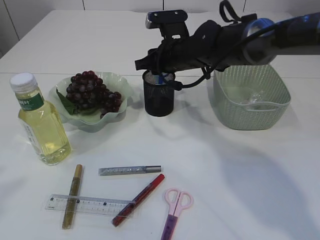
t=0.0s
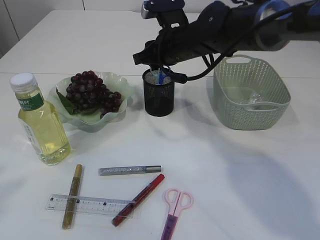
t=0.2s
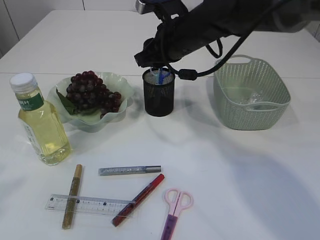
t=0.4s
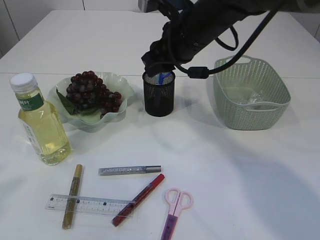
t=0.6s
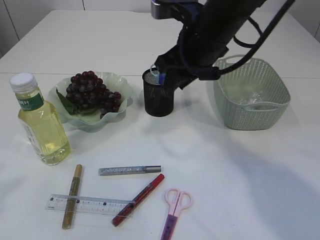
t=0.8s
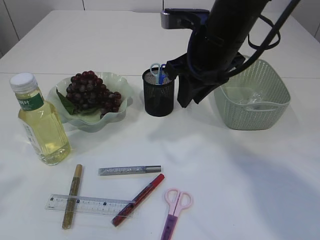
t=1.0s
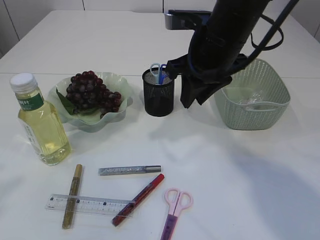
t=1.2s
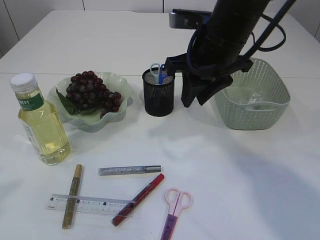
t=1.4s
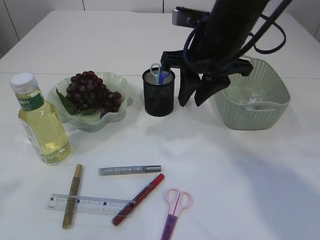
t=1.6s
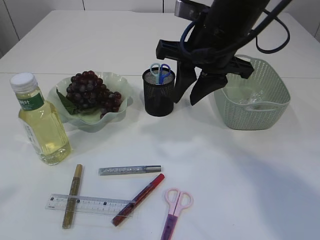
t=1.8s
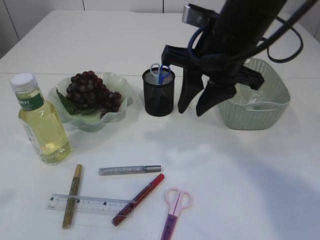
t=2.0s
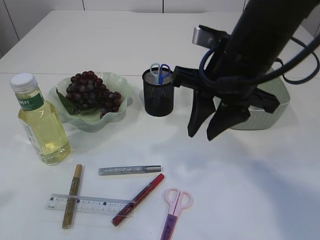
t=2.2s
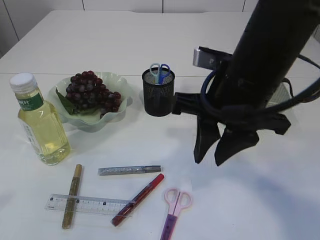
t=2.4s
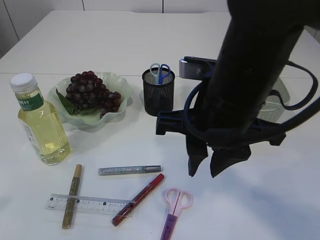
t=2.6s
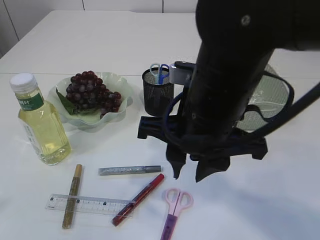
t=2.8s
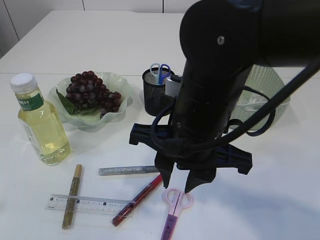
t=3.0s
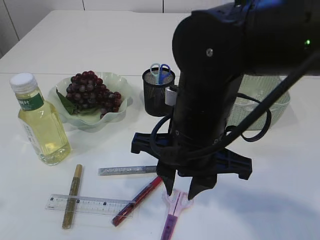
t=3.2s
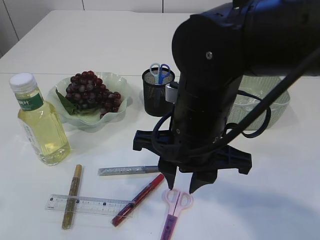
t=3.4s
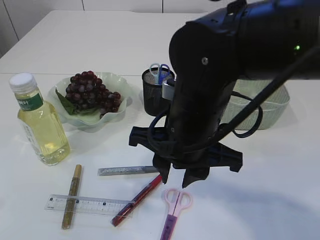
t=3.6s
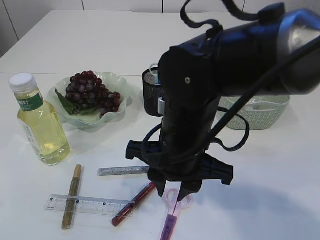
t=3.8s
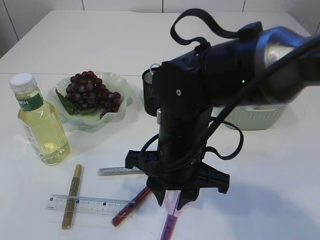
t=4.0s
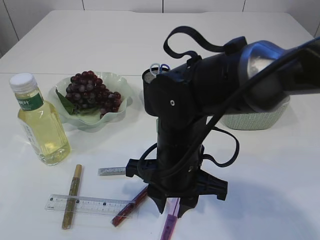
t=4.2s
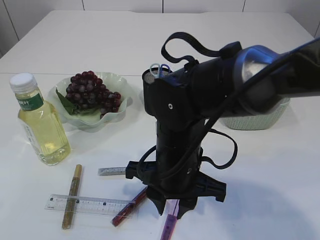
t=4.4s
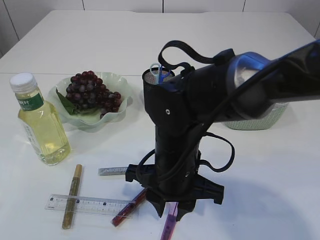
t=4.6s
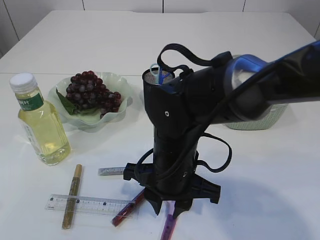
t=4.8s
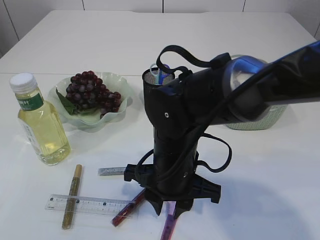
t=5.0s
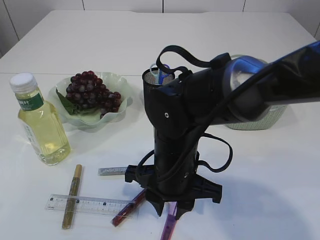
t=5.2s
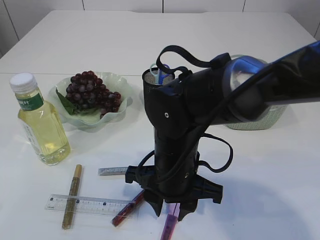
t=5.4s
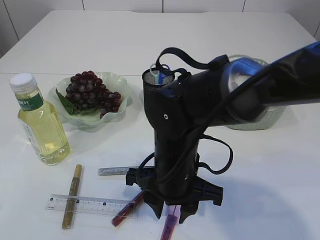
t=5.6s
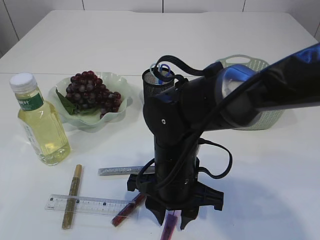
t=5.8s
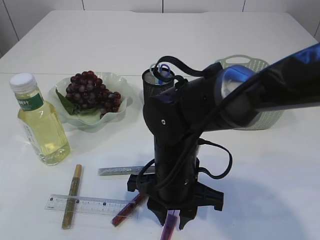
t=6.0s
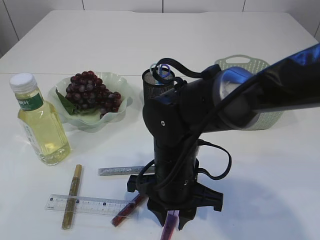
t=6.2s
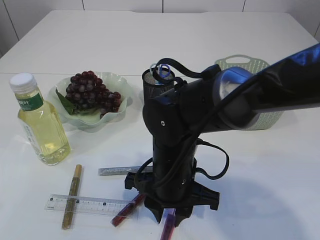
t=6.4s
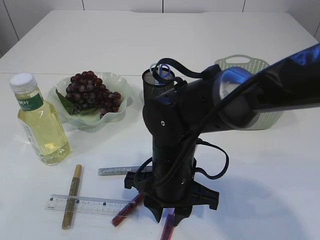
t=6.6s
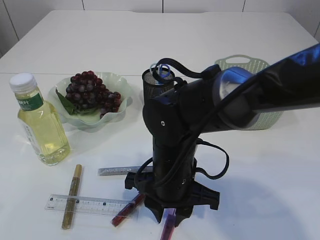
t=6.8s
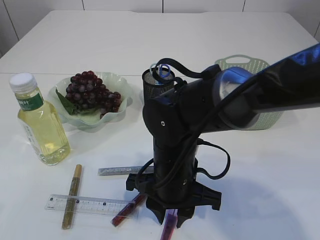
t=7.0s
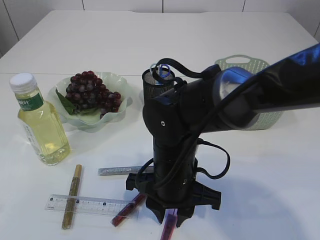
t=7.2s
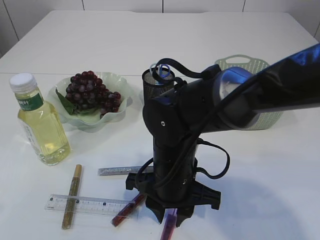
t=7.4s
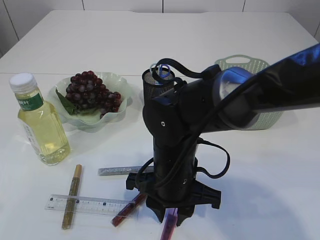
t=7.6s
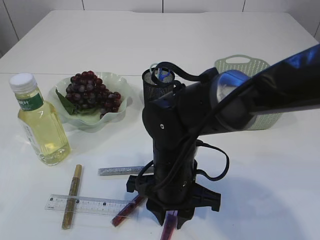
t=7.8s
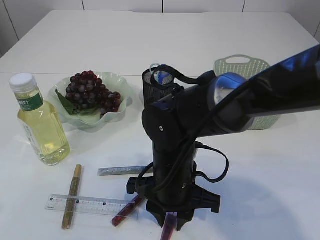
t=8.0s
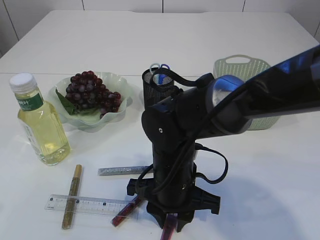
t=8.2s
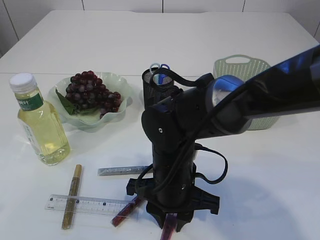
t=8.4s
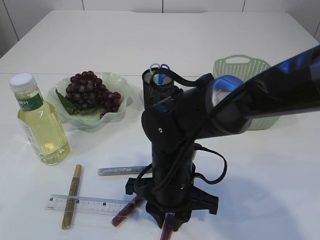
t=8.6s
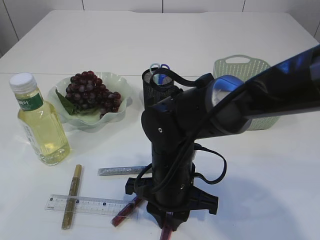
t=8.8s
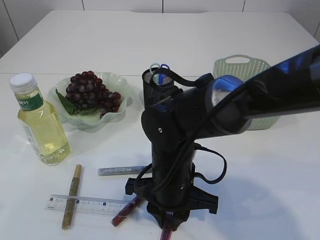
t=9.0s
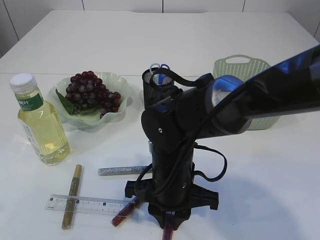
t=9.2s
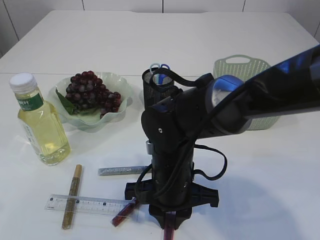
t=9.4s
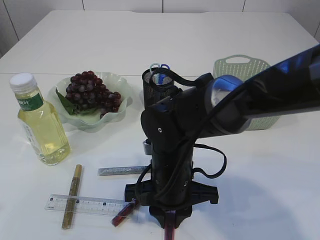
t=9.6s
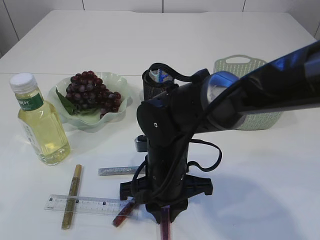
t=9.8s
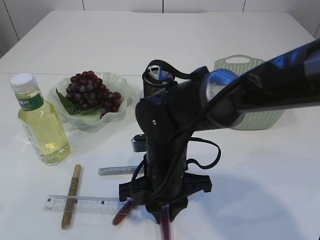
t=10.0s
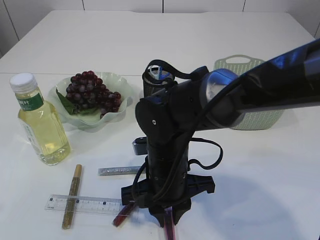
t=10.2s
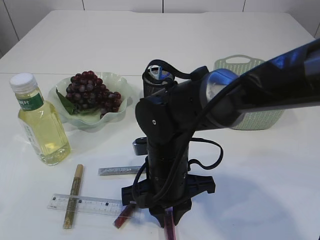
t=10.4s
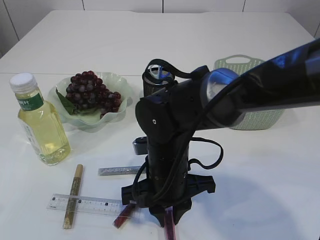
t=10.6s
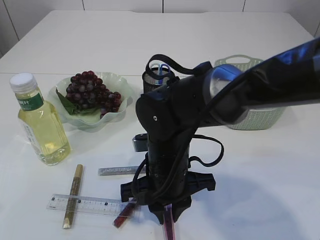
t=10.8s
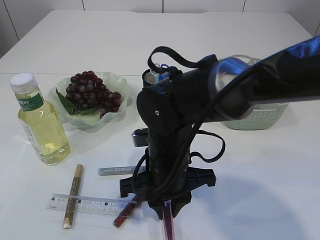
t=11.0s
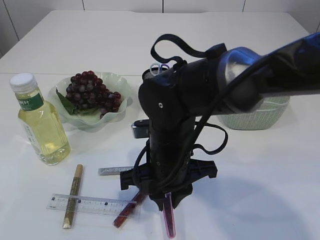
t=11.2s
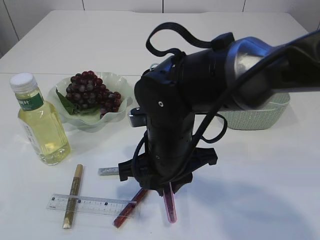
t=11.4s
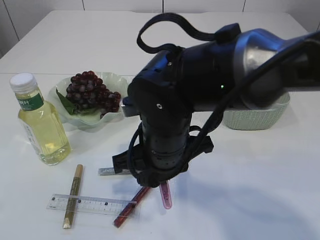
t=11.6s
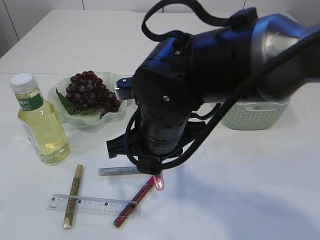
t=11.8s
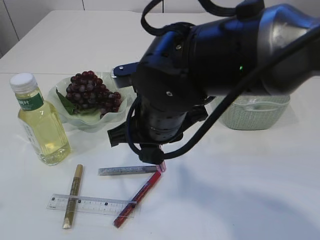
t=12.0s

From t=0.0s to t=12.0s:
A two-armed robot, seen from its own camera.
Step, from t=0.6s to t=11.6s: pick up the pink scissors.
From t=0.0s to t=1.6s: The right gripper shifts about 15 cm backward and upward.
From t=1.6s to t=3.0s: The right gripper travels backward and to the left by approximately 15 cm.
From t=3.0s to t=4.4s: The right gripper moves downward, roughly 10 cm.
From t=4.4s to t=6.0s: The grippers move only a little.
From t=6.0s to t=7.6s: Both grippers stay put.
From t=7.6s to t=9.0s: Neither gripper changes place.
From t=10.4s to t=12.0s: The right gripper moves upward, approximately 10 cm.

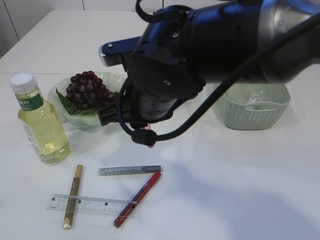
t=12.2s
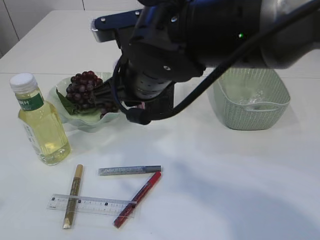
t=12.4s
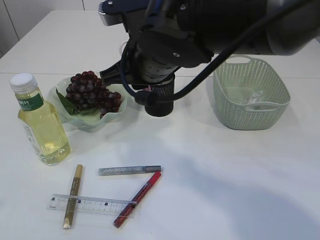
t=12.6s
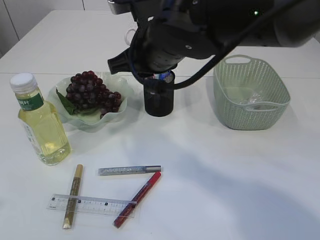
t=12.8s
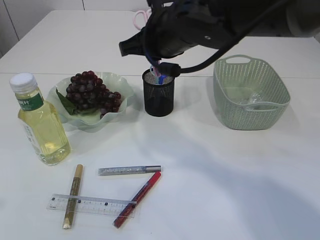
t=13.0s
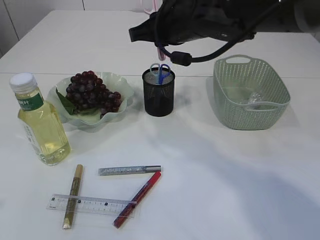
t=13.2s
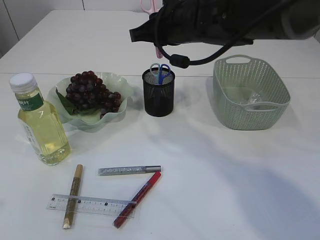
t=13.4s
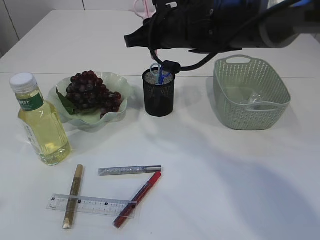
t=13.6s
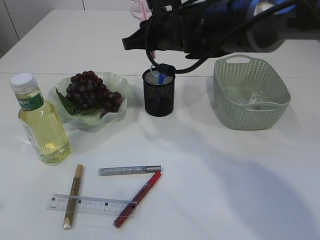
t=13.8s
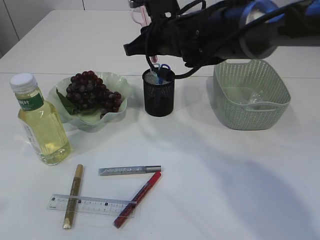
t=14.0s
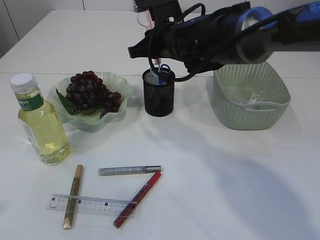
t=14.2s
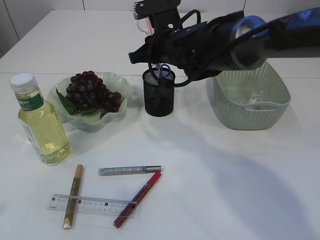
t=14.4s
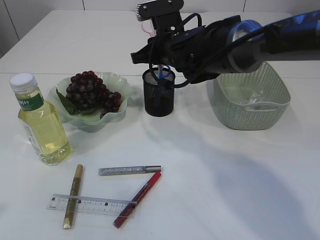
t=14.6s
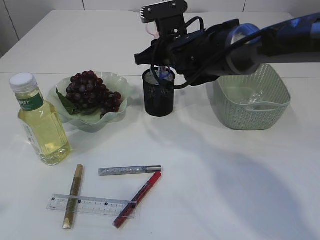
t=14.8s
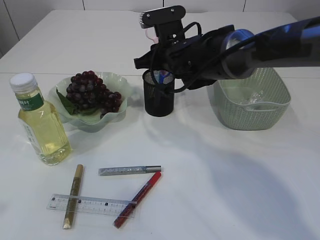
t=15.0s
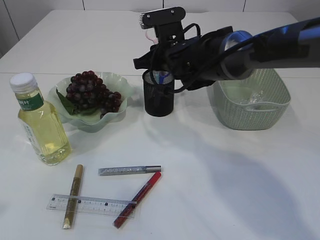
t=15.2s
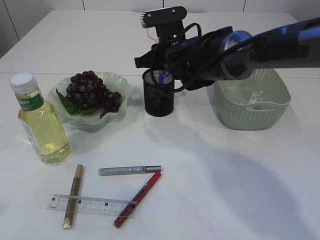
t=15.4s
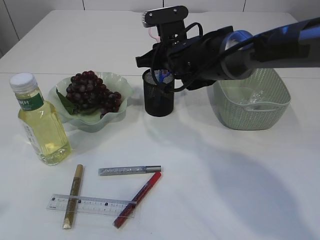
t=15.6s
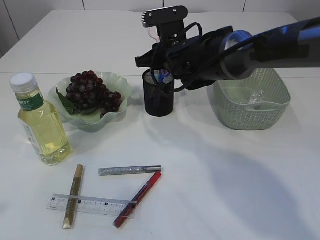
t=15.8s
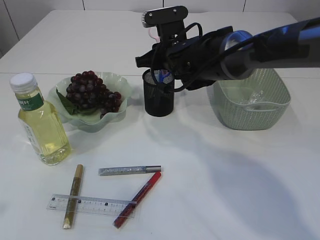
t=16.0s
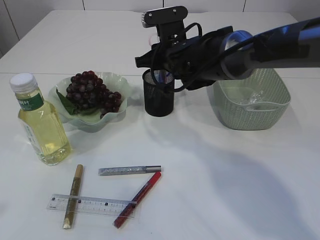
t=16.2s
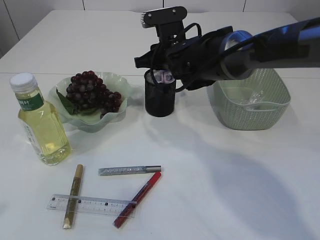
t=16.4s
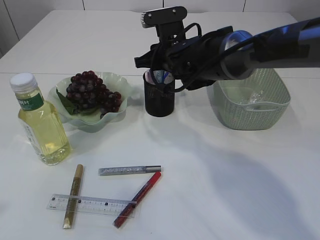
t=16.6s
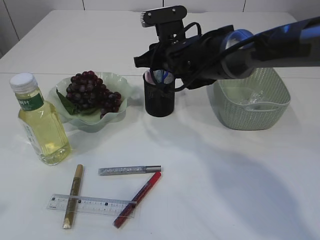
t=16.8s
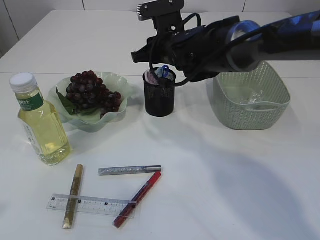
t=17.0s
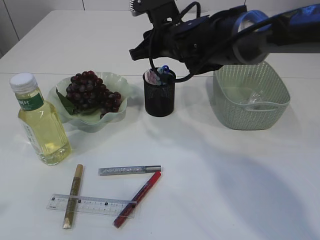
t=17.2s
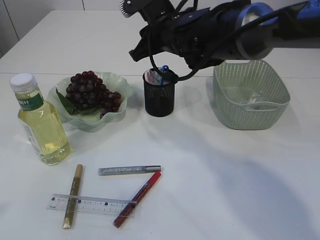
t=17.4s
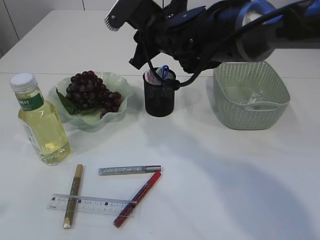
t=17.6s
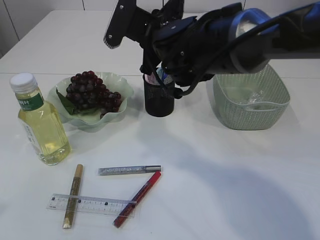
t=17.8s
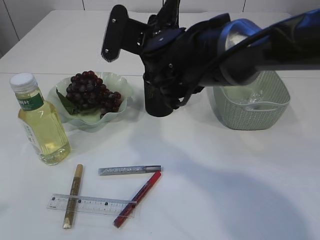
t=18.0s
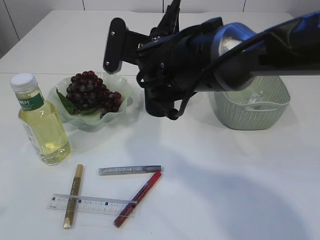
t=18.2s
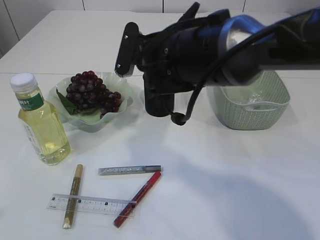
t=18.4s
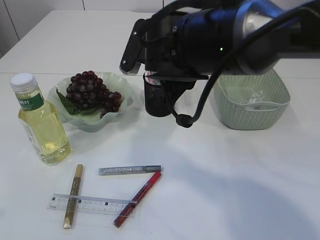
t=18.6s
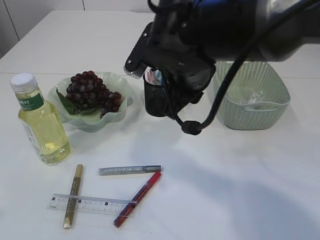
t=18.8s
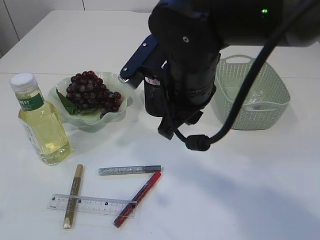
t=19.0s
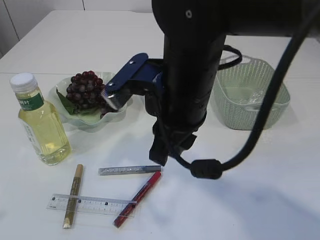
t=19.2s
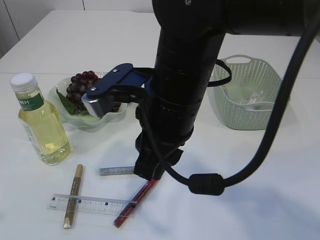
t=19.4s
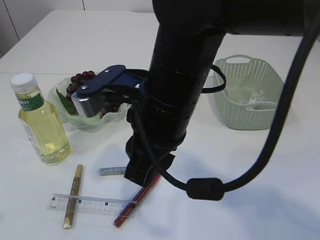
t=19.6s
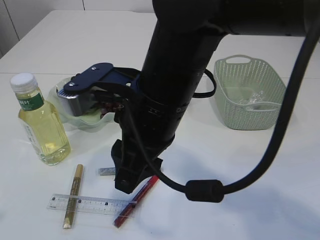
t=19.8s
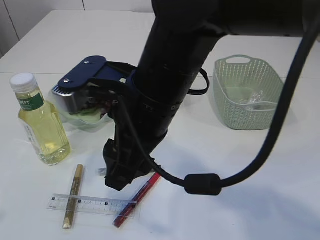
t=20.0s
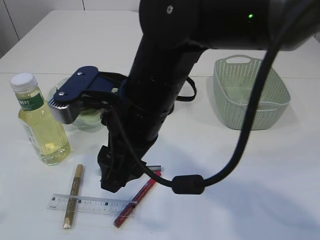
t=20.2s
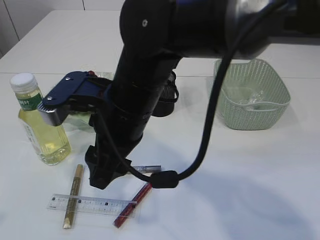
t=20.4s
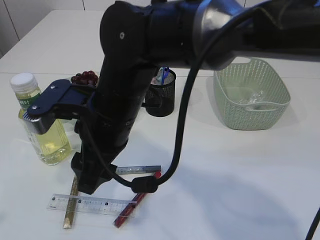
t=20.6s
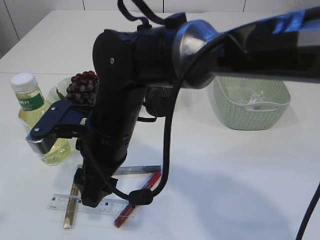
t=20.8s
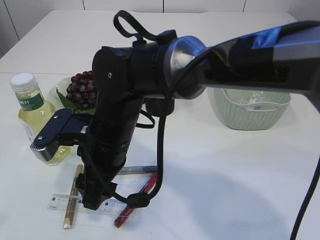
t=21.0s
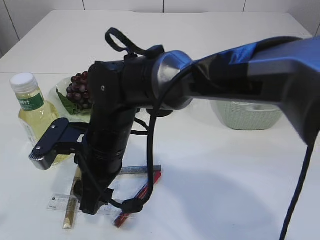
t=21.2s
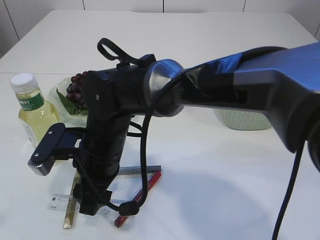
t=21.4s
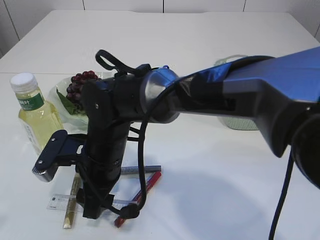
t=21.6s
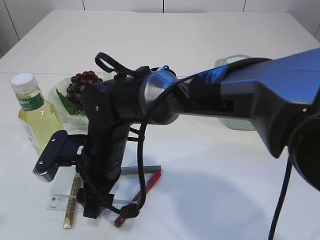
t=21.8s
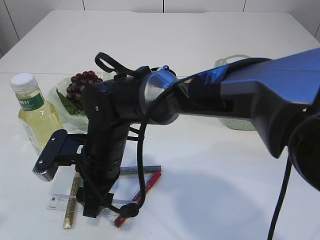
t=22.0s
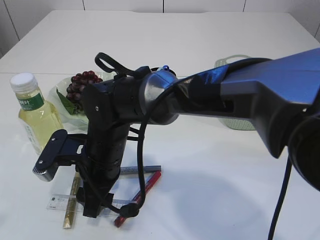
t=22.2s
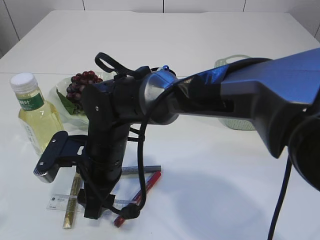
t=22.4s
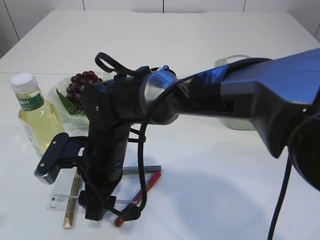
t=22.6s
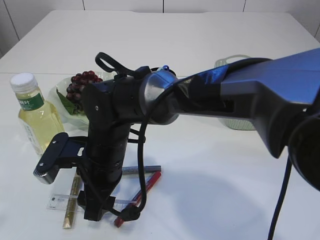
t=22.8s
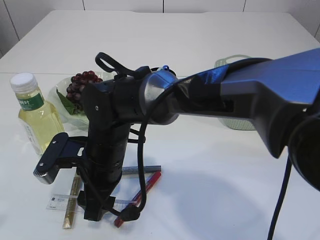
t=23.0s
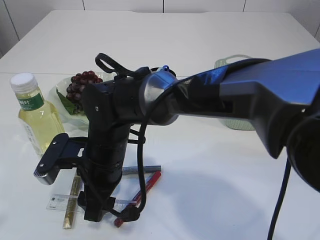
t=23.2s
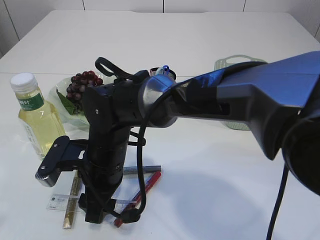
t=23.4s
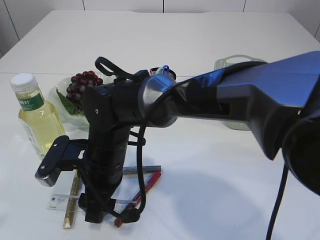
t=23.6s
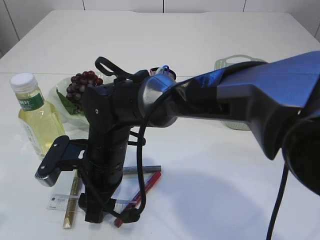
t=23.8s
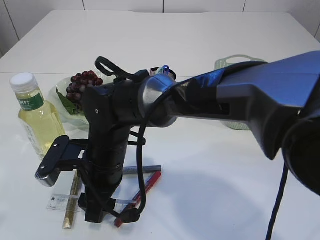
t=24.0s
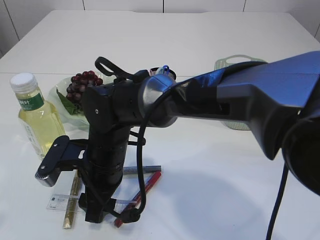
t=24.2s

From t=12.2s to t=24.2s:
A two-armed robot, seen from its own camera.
Step, from t=12.2s to t=18.8s: Place the pink scissors into the pen holder.
From t=12.2s to t=13.8s: The right gripper moves forward, approximately 15 cm.
From t=13.8s to t=15.2s: The right gripper travels downward by roughly 5 cm.
From t=15.2s to t=16.6s: Both grippers stay put.
From t=16.6s to t=18.2s: The right gripper heads backward, covering roughly 10 cm.
From t=18.2s to t=19.8s: The right gripper goes about 15 cm backward.
From t=19.8s to t=21.2s: The right gripper shifts about 15 cm downward and to the left, and opens up.
From t=22.6s to t=24.2s: The two grippers keep their place.
